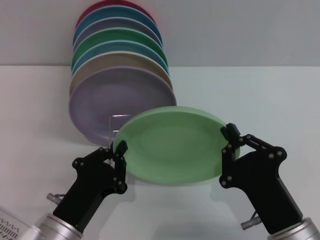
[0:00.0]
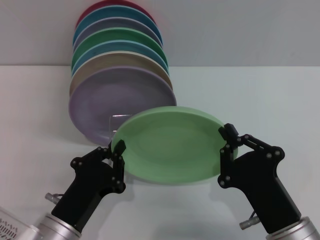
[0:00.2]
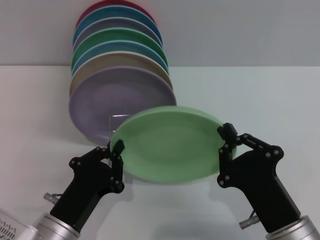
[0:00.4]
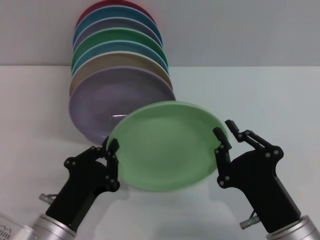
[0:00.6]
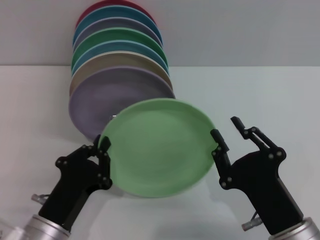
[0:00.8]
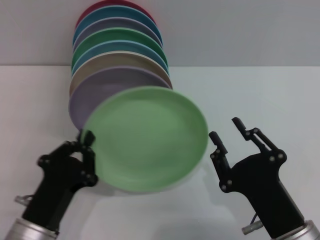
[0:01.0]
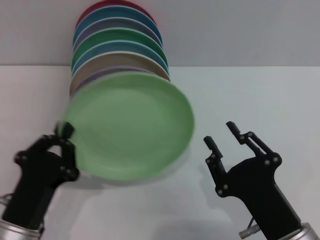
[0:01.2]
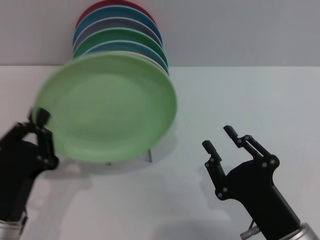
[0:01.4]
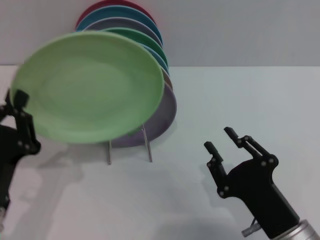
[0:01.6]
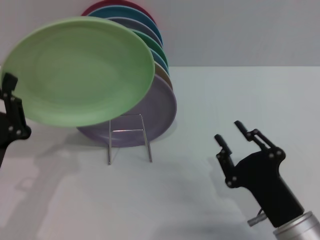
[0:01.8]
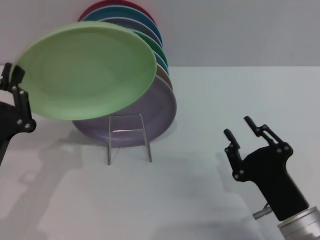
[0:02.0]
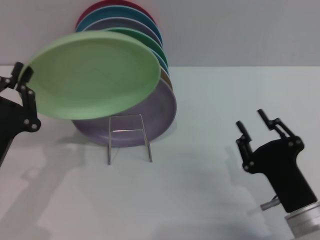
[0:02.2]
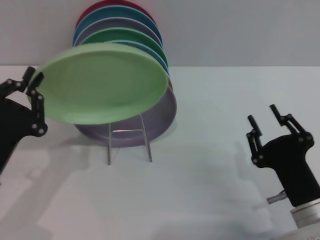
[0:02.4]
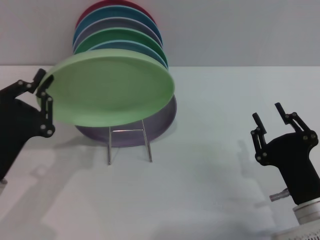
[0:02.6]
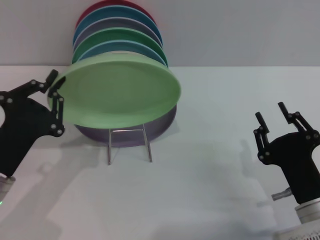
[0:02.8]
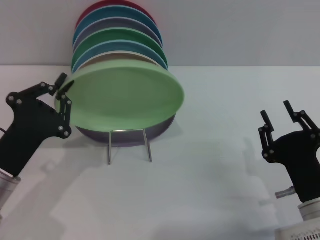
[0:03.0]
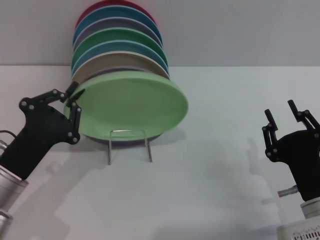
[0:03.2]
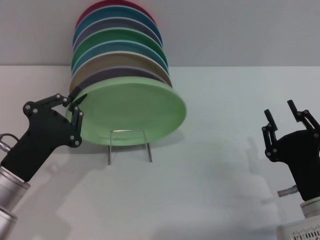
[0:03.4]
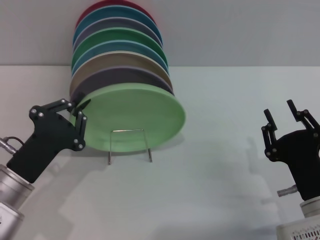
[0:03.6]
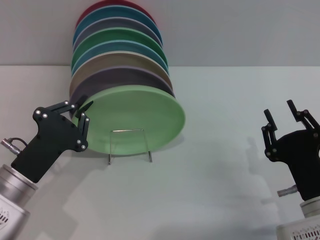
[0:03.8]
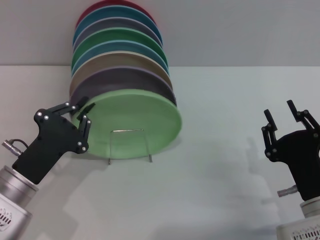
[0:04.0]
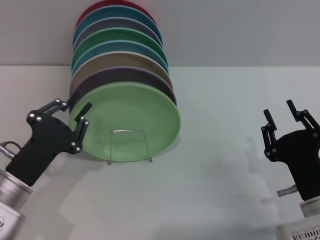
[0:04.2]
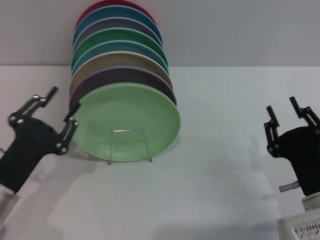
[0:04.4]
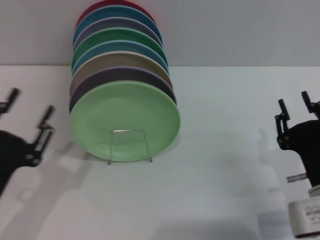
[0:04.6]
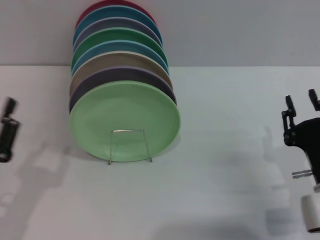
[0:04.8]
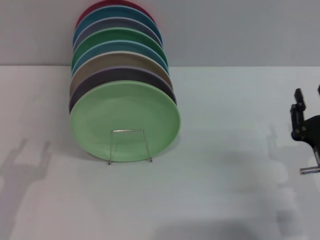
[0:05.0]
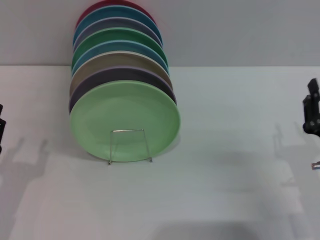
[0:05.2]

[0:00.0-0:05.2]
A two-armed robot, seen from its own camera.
Task of the whole recording: Grip the plate with one hand, pass it to the other, then set it on the shelf.
Step, 0:01.0 to 0:04.2: Place the plate on the shelf with the left gripper.
0:00.0 to 0:01.8: The right gripper opens its fingers. The left gripper shifts about 10 cm to the left and upward.
0:03.4 to 0:05.2: The left gripper is displaced to the left by roughly 5 cm, and opens.

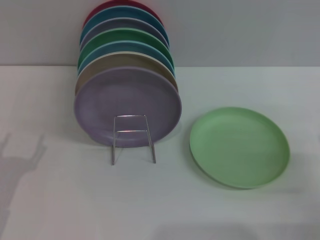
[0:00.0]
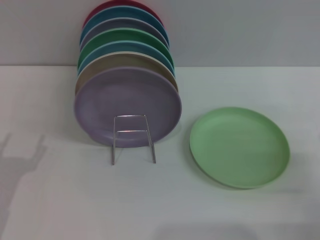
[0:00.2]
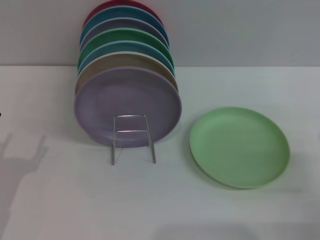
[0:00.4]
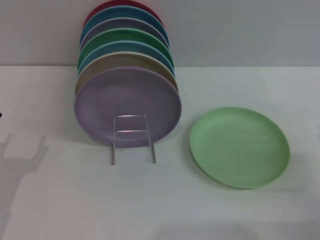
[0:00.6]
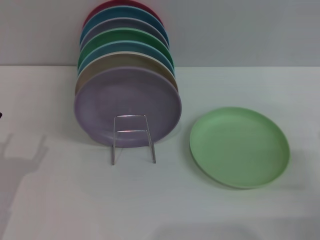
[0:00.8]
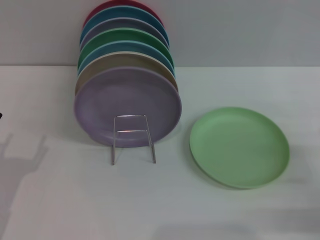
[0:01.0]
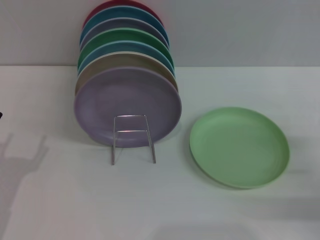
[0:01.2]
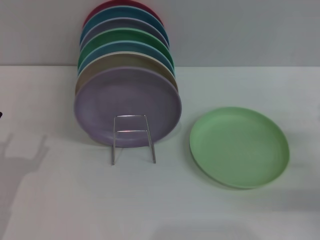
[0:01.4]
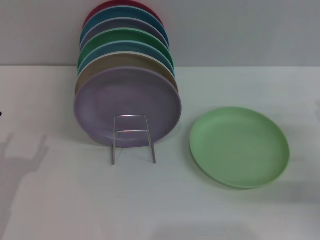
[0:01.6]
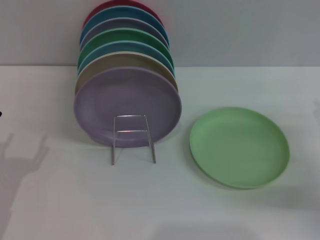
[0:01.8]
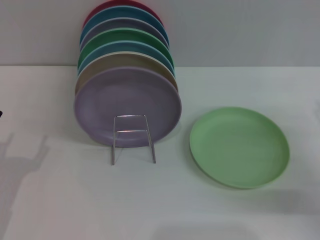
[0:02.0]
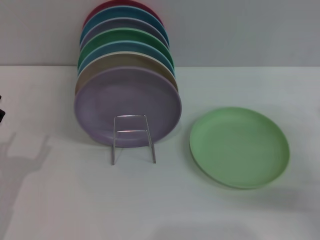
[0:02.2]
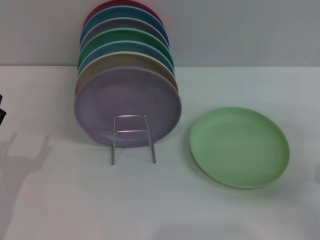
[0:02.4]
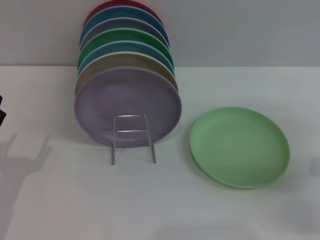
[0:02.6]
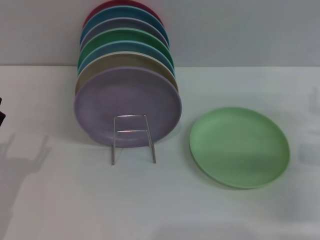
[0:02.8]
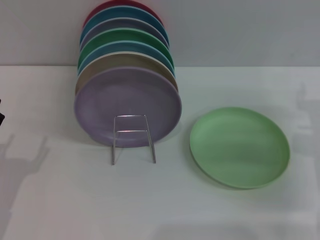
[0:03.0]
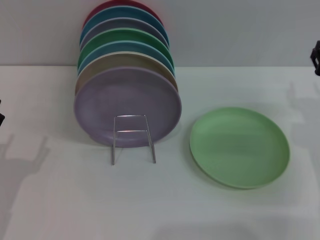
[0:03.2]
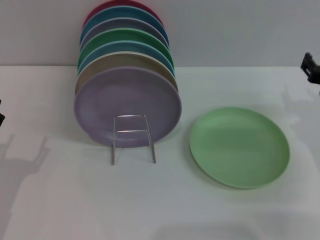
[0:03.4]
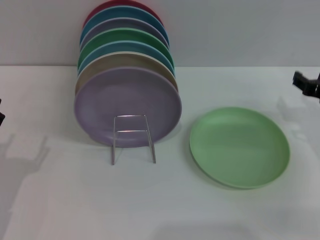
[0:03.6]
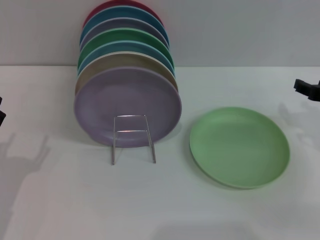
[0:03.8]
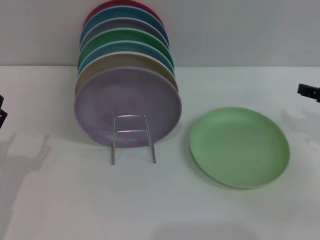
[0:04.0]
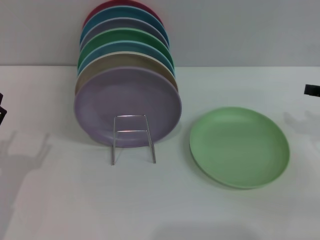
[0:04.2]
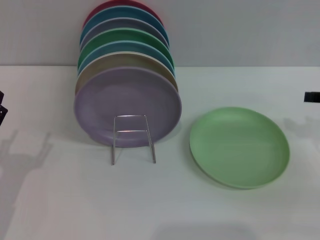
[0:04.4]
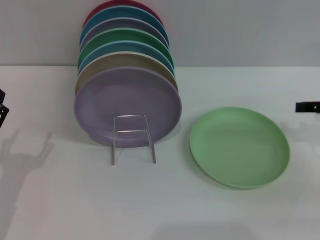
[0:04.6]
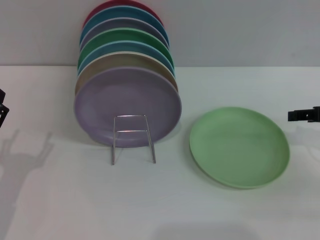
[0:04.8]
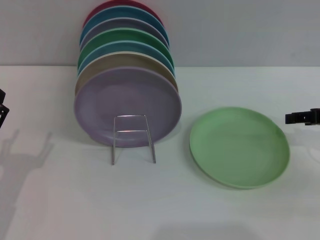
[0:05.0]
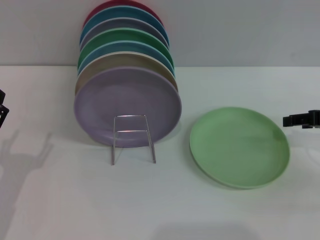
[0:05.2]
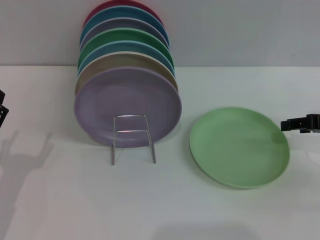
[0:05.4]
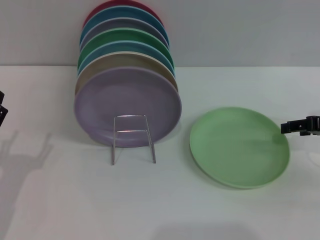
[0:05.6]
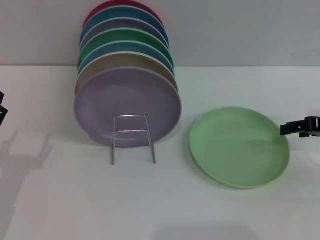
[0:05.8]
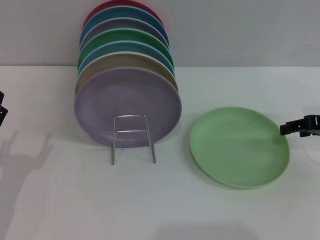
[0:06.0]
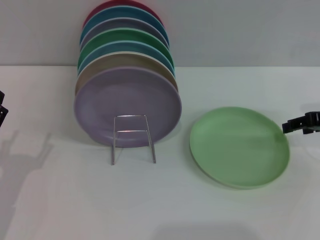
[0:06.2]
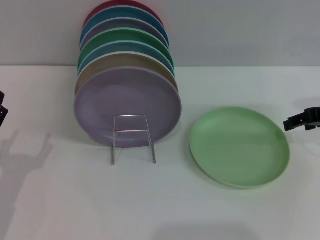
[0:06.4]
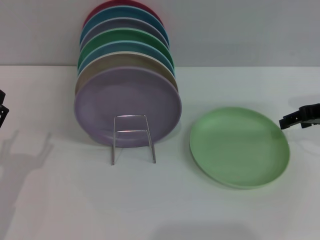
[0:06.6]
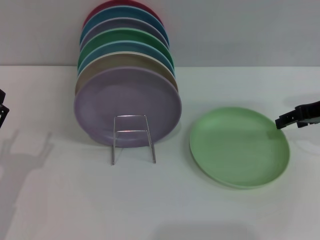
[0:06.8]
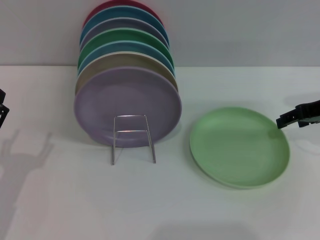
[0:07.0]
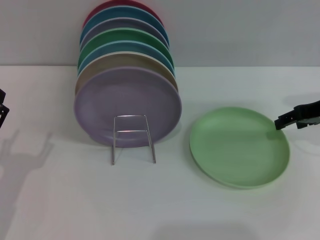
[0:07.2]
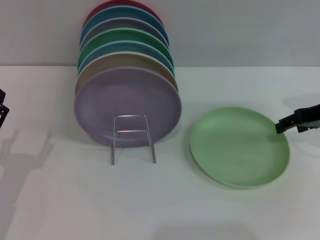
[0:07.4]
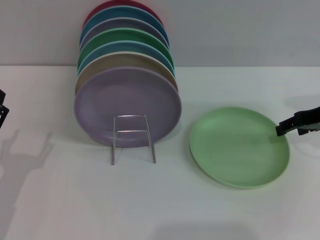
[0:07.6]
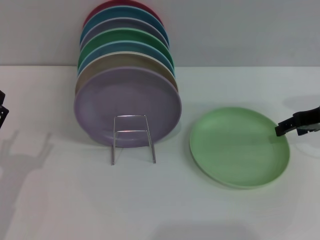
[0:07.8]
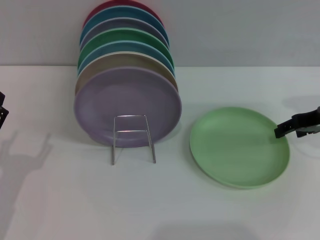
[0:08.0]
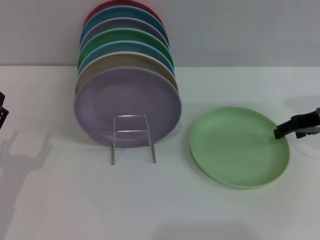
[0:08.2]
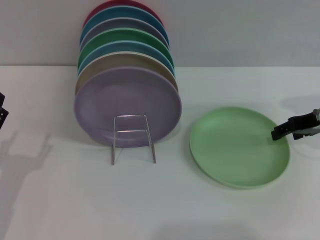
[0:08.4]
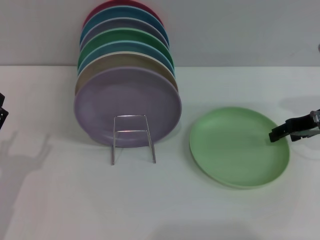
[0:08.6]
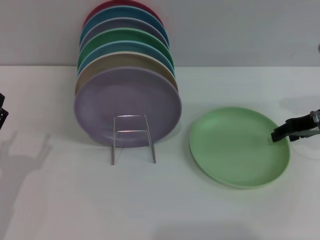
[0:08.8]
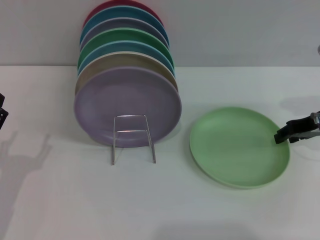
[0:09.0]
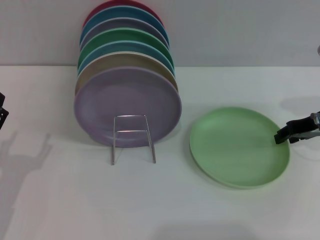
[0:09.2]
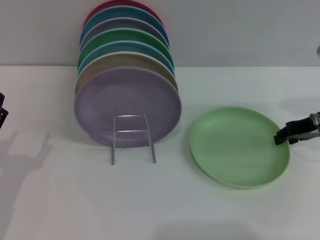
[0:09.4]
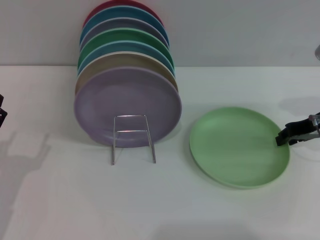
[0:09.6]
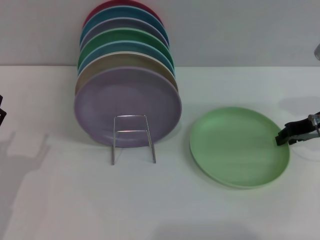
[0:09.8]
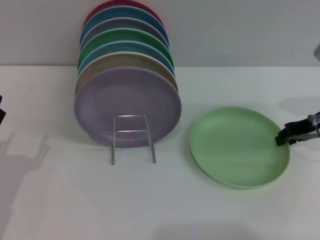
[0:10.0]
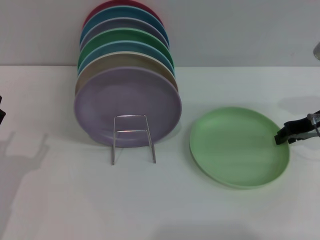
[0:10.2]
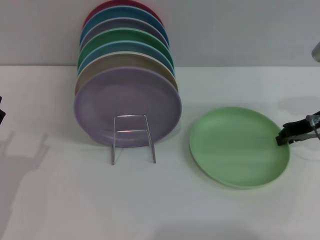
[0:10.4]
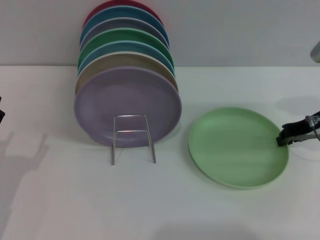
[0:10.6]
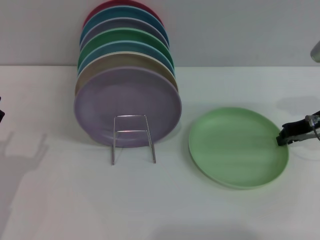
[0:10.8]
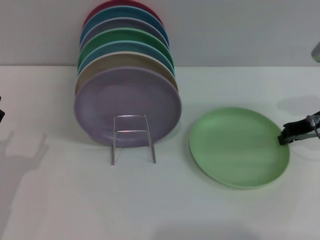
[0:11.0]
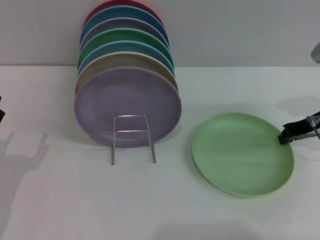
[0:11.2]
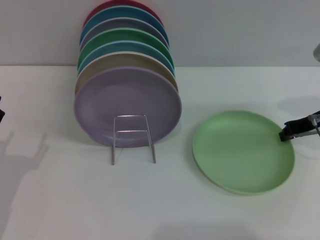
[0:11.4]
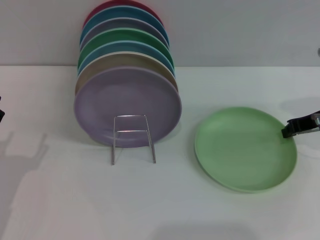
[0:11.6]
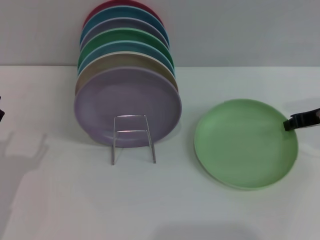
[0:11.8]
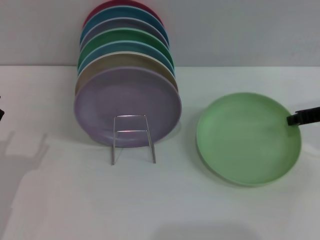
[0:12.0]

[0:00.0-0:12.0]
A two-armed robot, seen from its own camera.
Task of the whole recording: Grip the plate with one hand, pass it to the other, then set it on the shelf.
0:00.0 to 0:01.6: The right gripper moves forward, some 5 cm.
0:01.6 to 0:03.0: The right gripper heads to the left and forward, covering approximately 10 cm.
0:03.0 to 0:04.4: The right gripper heads upward and to the right, covering roughly 10 cm.
0:04.4 to 0:06.0: The grippers stay close to where they were, moving slightly.
0:06.0 to 0:09.0: The grippers make only small movements.
0:09.0 to 0:10.4: The right gripper closes its fingers.
0:10.4 to 0:12.0: The right gripper closes its fingers.

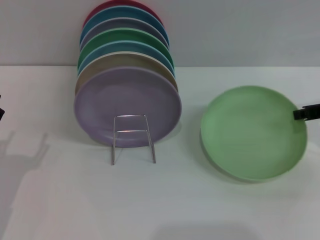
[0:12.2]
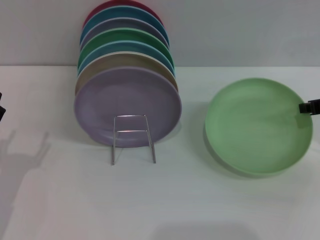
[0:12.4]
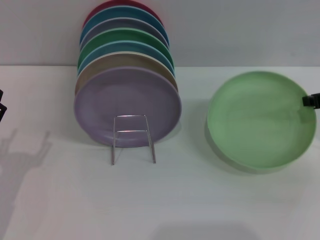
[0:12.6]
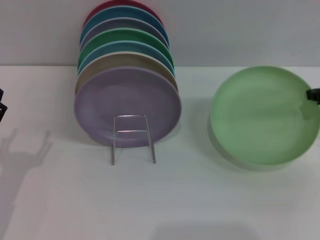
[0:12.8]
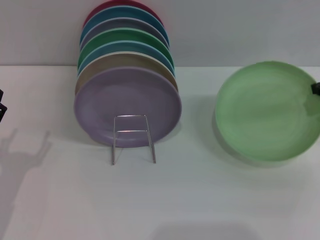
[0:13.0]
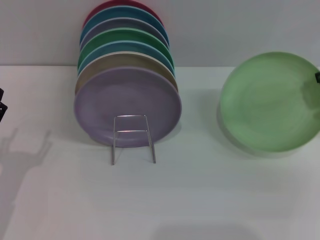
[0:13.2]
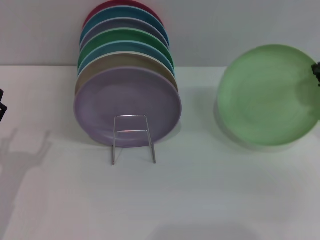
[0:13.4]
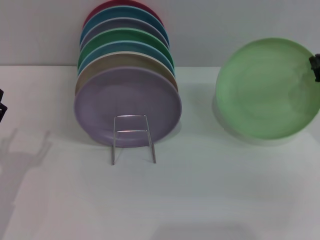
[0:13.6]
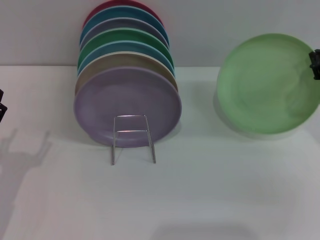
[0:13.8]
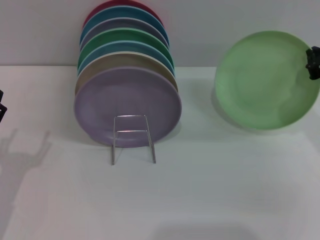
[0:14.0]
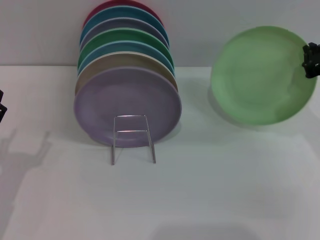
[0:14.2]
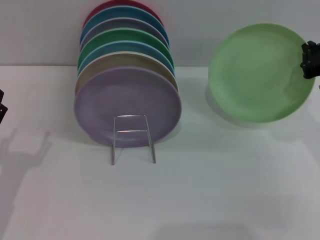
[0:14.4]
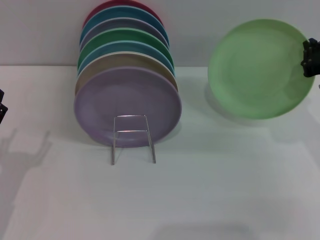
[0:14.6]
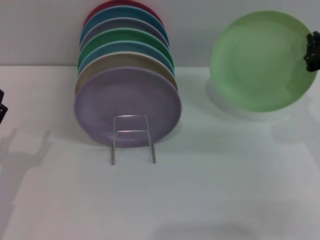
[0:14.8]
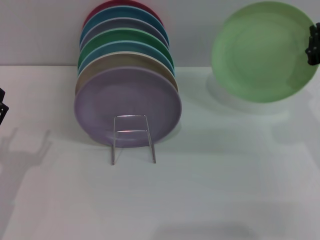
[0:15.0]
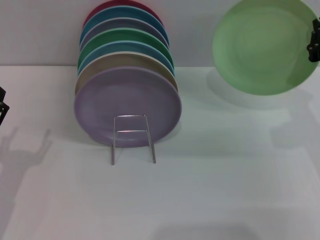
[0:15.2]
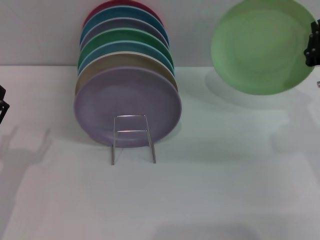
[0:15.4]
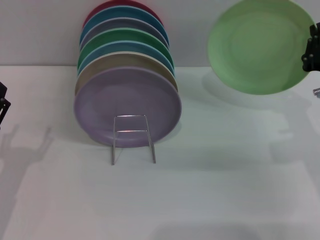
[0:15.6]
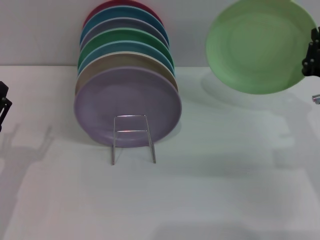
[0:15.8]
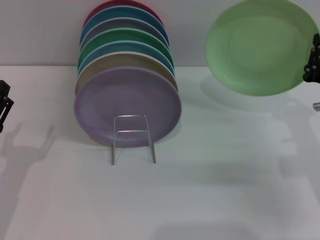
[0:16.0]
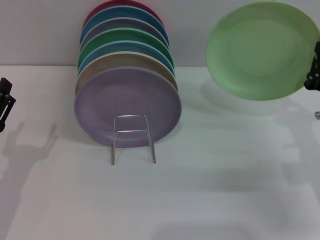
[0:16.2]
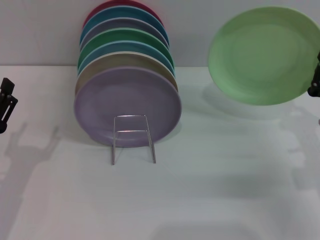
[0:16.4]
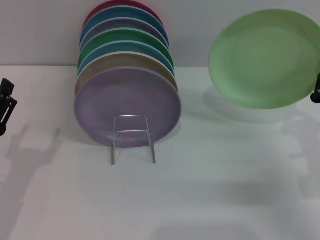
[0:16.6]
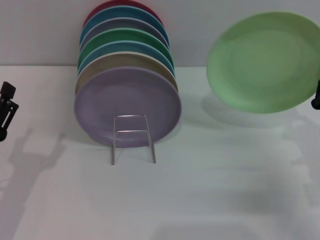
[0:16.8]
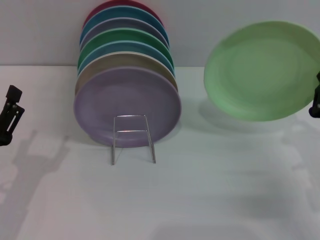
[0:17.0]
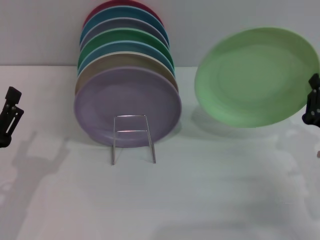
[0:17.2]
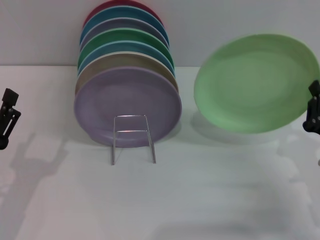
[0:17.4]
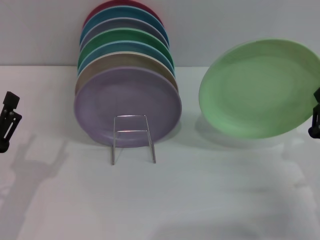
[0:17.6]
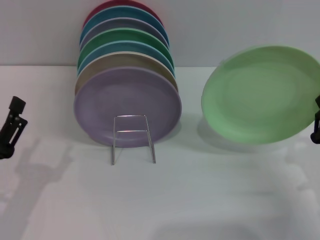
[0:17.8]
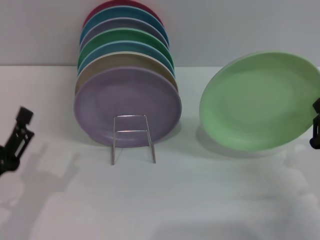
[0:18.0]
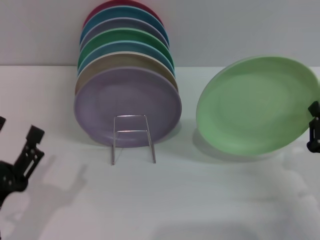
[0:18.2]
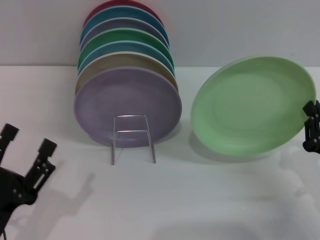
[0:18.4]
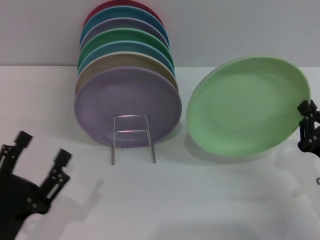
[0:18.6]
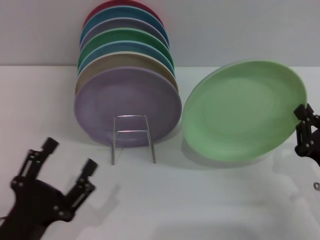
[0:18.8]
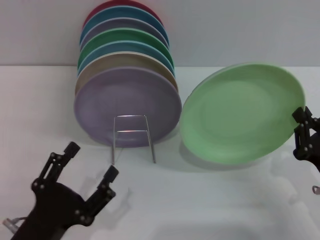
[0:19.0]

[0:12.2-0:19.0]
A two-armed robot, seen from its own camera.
Task of the whole recording: Grip the plate with one hand, pass it to the other, then set it on the shelf.
0:12.2 to 0:13.6: The right gripper changes place by some 5 cm.
0:15.0 to 0:16.2: The right gripper travels downward by roughly 10 cm.
0:16.2 to 0:17.6: The right gripper heads backward, covering about 5 cm.
0:17.6 to 0:19.0: The left gripper is displaced to the right and backward by about 10 cm.
